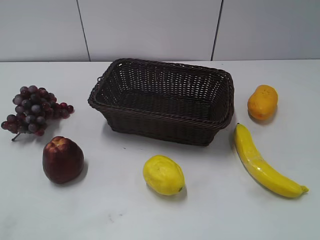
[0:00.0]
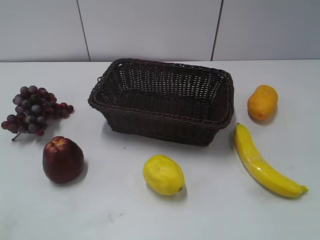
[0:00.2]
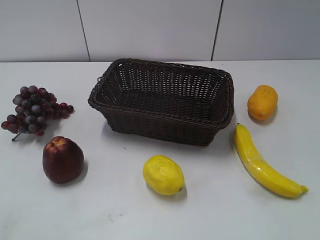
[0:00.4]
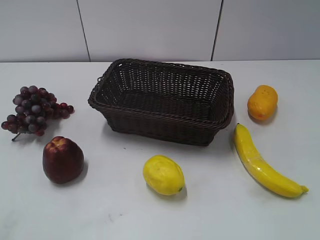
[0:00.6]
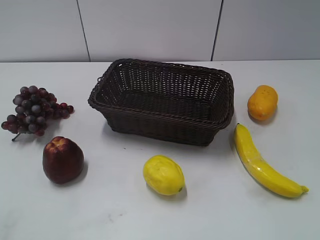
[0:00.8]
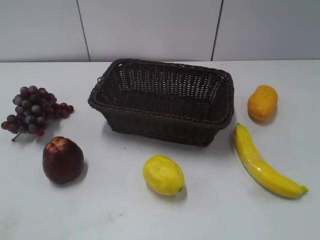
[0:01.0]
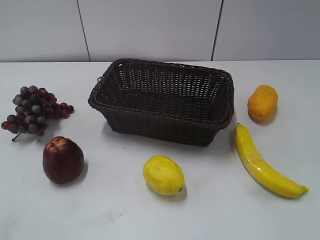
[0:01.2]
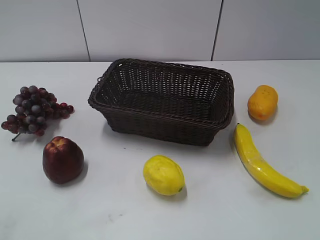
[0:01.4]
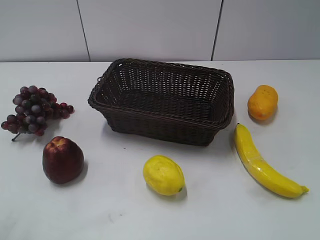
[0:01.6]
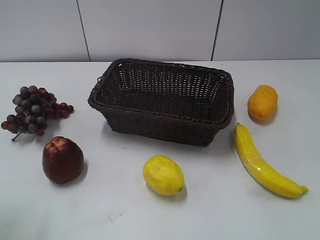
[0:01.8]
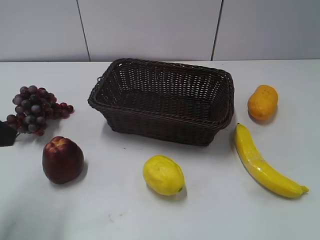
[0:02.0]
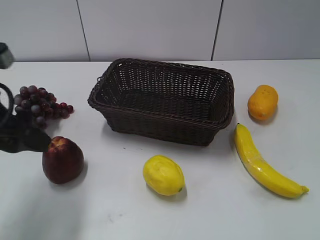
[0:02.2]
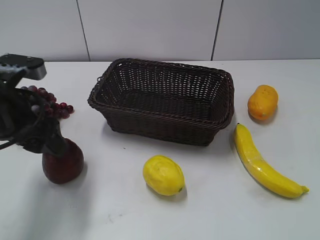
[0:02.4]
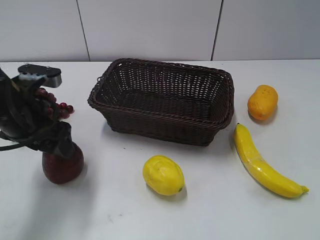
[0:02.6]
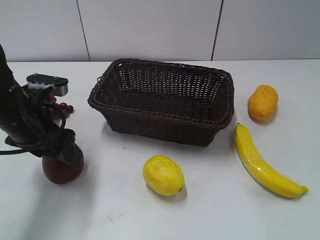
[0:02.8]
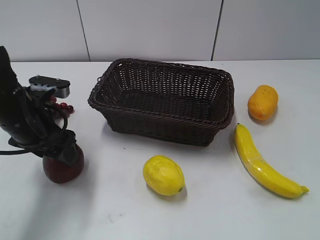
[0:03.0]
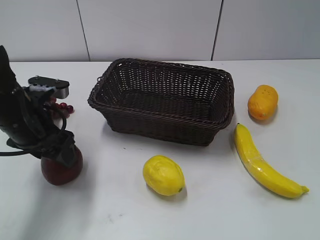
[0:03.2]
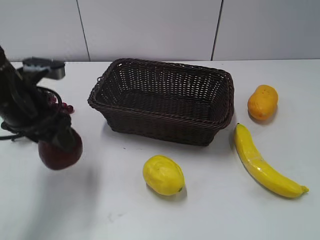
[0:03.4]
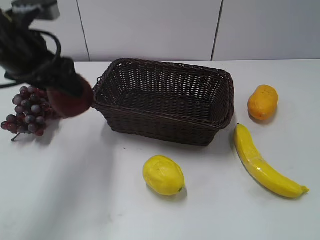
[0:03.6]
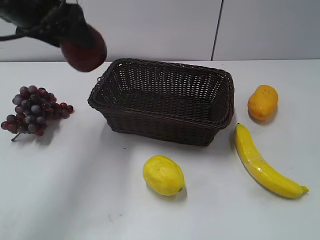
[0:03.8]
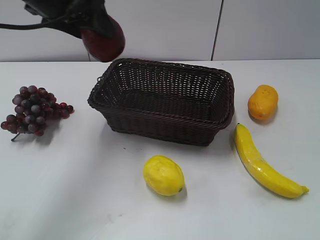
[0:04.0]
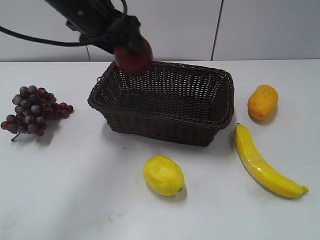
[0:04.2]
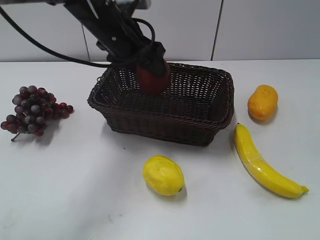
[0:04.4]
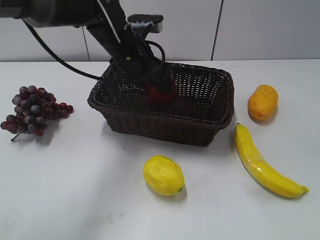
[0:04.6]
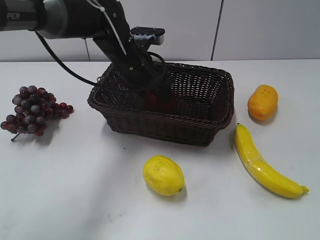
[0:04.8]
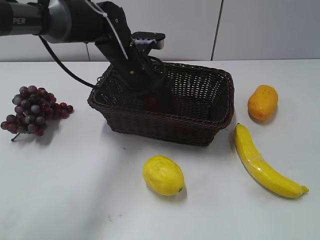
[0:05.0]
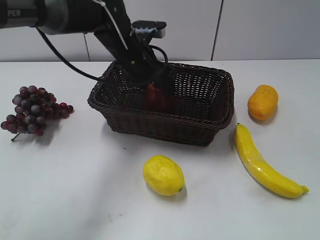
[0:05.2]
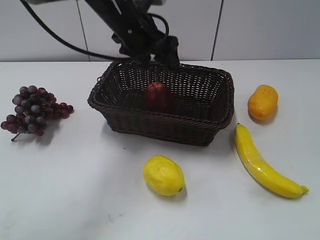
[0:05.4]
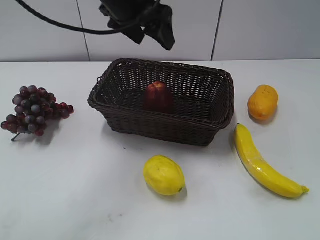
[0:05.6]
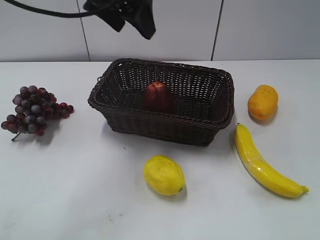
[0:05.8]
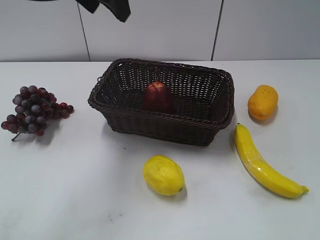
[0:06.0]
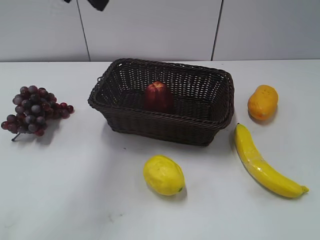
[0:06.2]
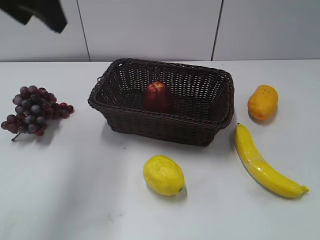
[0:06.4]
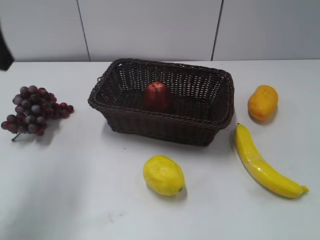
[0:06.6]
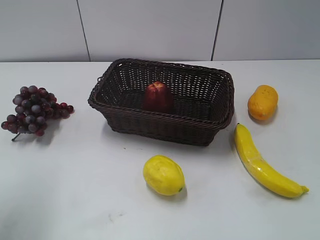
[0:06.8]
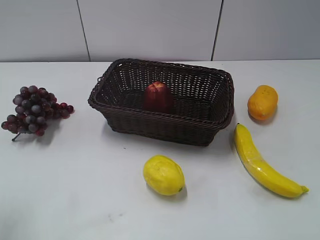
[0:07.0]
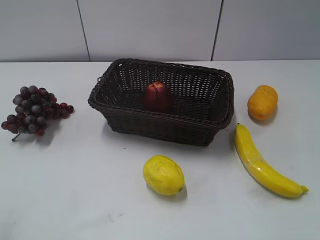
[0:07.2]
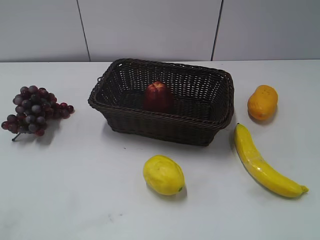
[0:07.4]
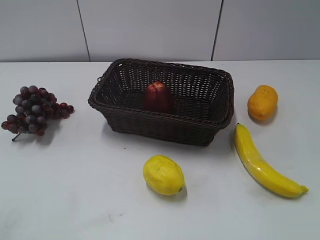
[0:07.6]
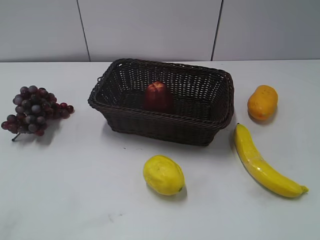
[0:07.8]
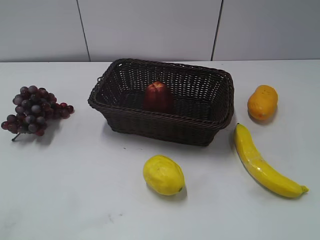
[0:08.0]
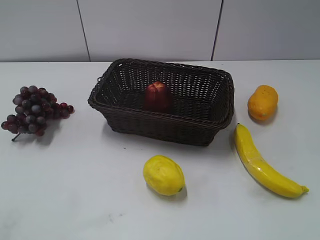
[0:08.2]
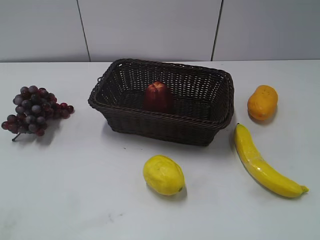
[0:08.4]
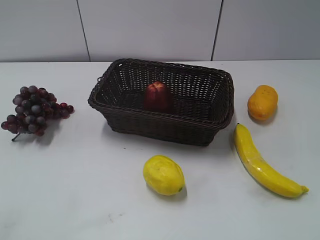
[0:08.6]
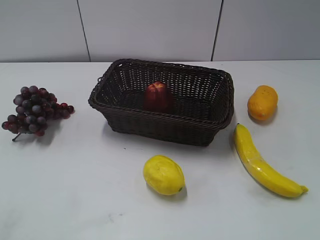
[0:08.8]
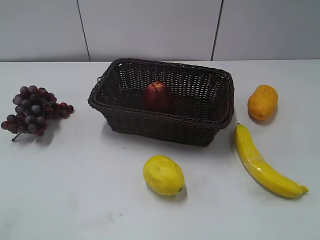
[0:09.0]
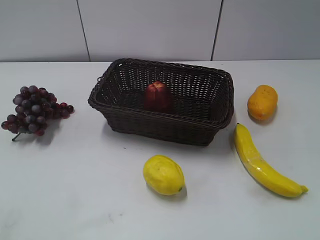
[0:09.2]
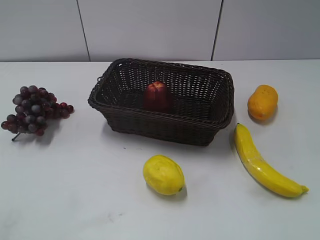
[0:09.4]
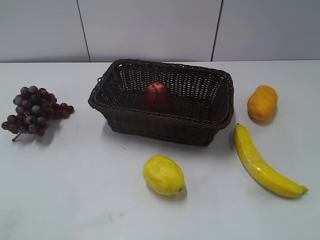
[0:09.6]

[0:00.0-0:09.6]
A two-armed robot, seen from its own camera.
Step, 0:02.0 to 0:03.0: Grasp the apple with left gripper.
Step, 0:03.2 to 0:05.0: Place the apple in the basket with left gripper.
0:01.6 to 0:03.2: The left gripper moves forward, downward and to the right, some 25 cm, and closes up.
0:03.2 to 0:04.8: The left gripper is displaced to the right and forward by approximately 20 cm, and reaches about 15 cm upward, then returns.
0:04.8 to 0:06.4: The left gripper is displaced upward, to the left and backward by some 25 cm, and opens, then closes again.
0:06.4 to 0:08.0: The left gripper is displaced backward and to the left by roughly 30 cm.
